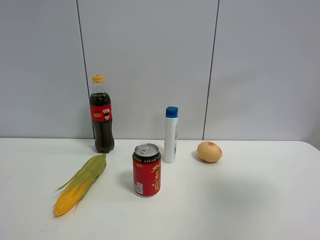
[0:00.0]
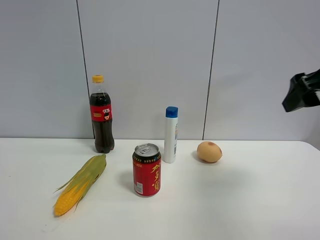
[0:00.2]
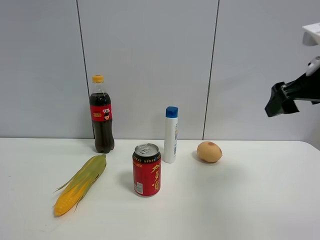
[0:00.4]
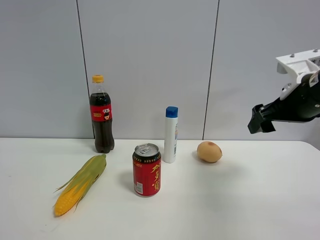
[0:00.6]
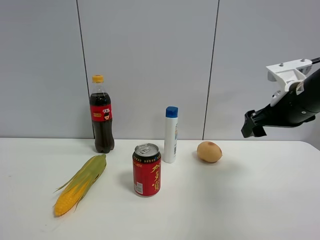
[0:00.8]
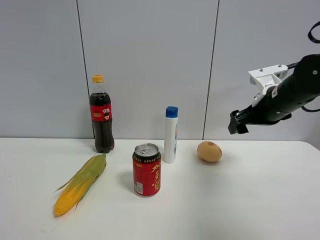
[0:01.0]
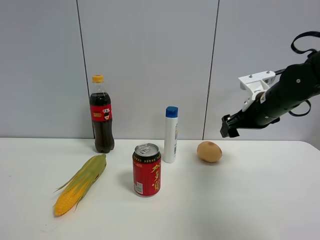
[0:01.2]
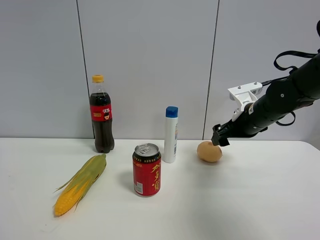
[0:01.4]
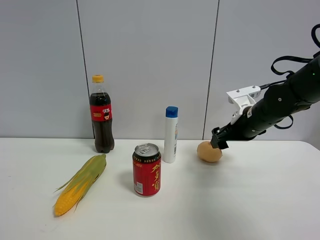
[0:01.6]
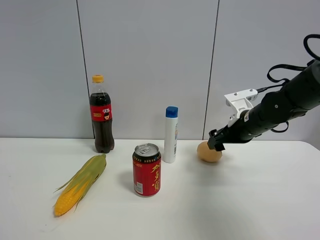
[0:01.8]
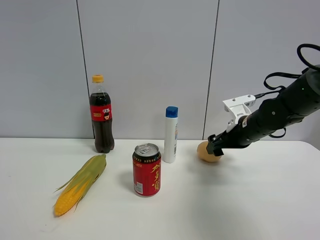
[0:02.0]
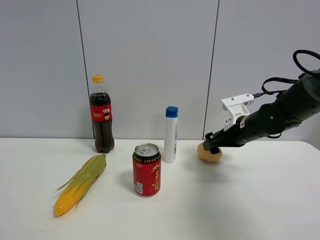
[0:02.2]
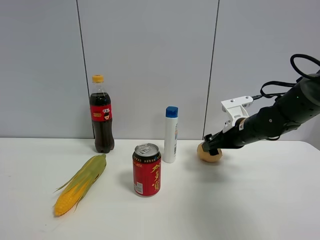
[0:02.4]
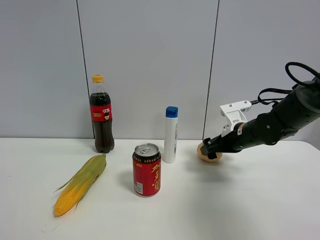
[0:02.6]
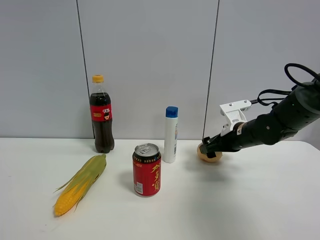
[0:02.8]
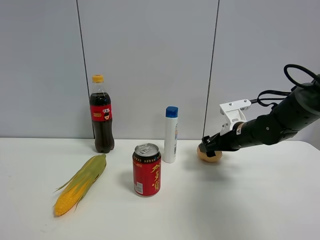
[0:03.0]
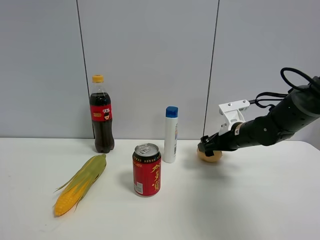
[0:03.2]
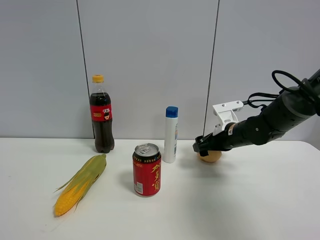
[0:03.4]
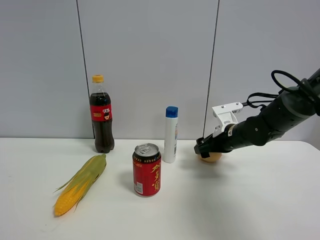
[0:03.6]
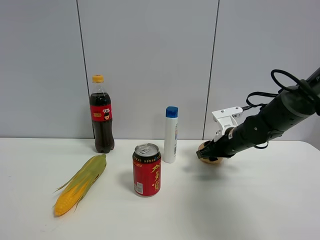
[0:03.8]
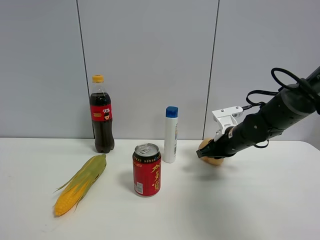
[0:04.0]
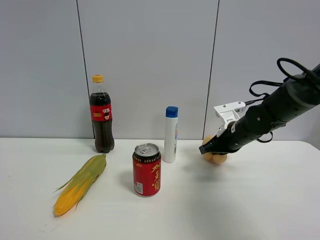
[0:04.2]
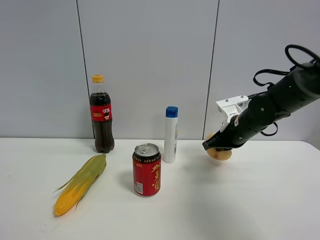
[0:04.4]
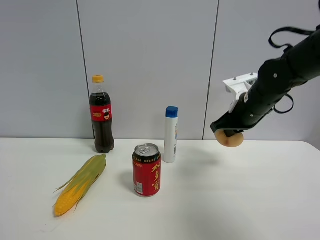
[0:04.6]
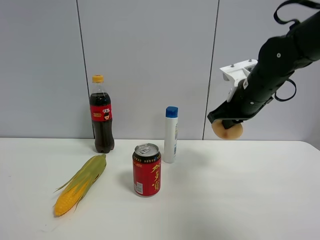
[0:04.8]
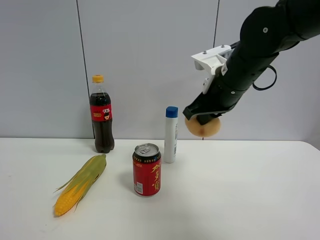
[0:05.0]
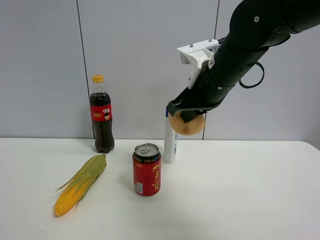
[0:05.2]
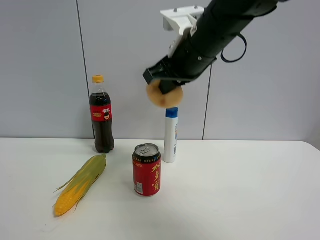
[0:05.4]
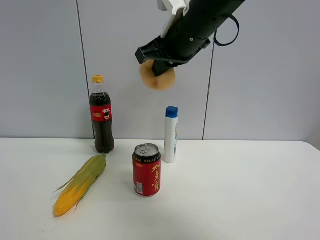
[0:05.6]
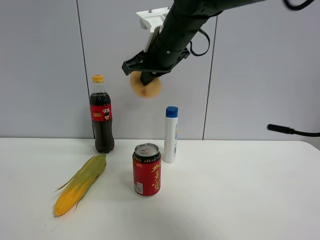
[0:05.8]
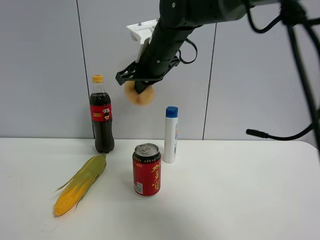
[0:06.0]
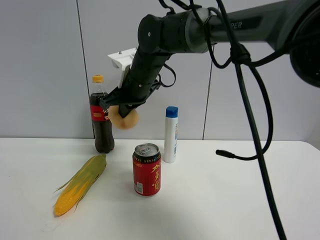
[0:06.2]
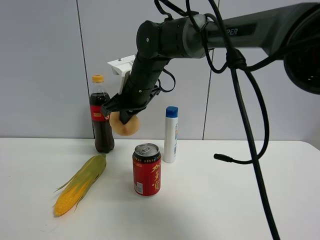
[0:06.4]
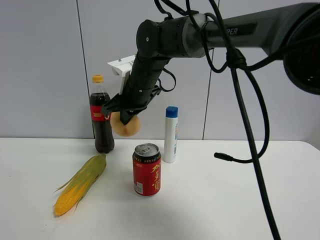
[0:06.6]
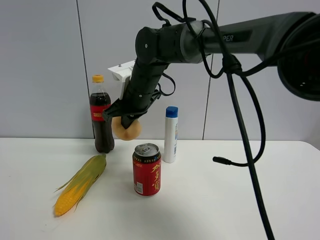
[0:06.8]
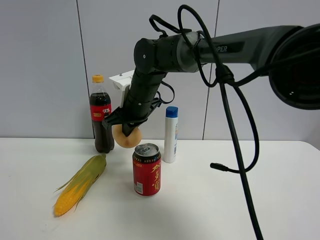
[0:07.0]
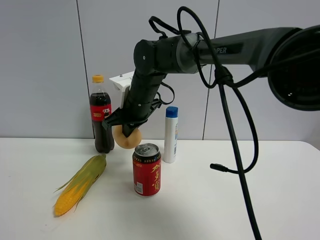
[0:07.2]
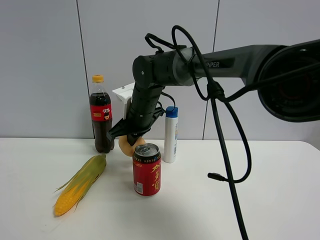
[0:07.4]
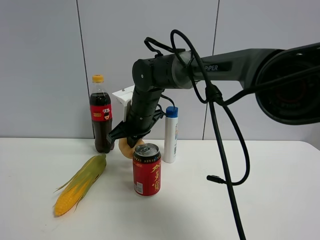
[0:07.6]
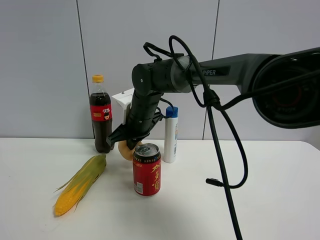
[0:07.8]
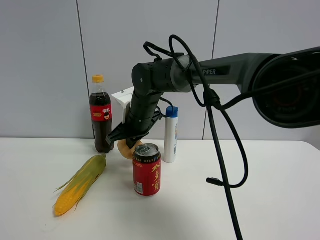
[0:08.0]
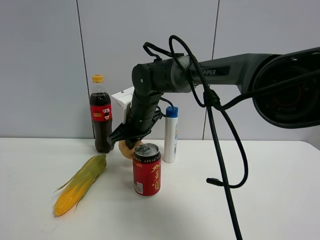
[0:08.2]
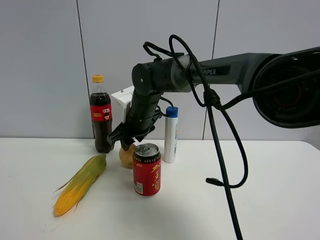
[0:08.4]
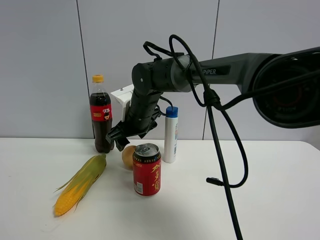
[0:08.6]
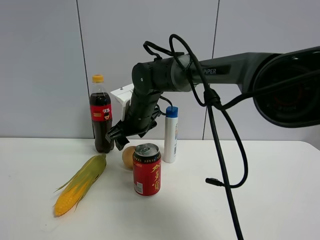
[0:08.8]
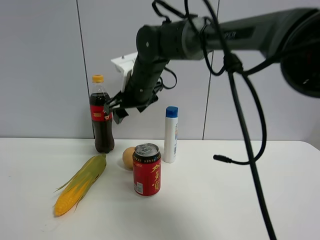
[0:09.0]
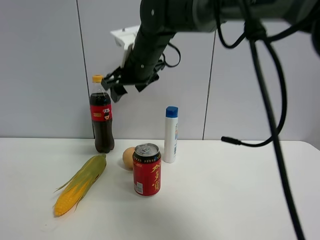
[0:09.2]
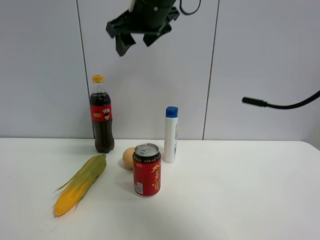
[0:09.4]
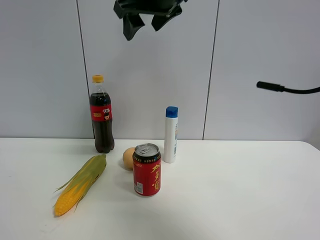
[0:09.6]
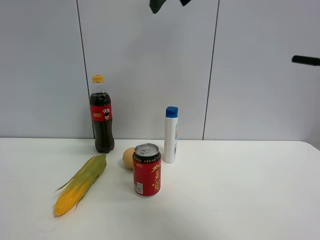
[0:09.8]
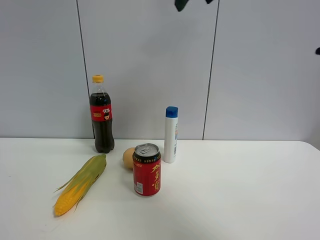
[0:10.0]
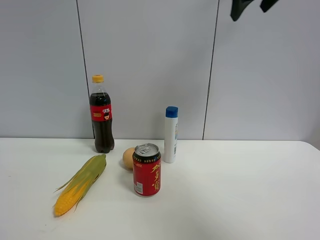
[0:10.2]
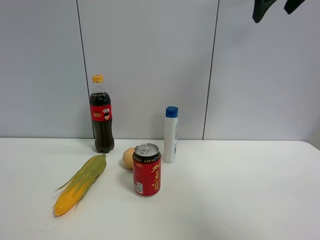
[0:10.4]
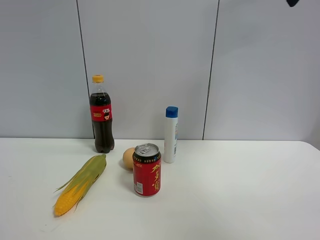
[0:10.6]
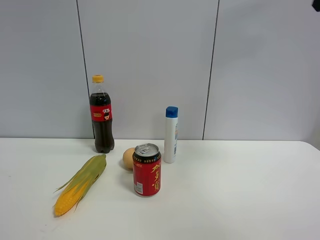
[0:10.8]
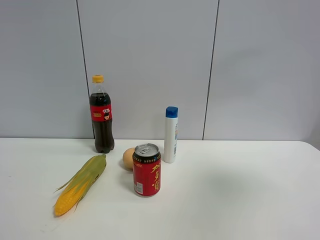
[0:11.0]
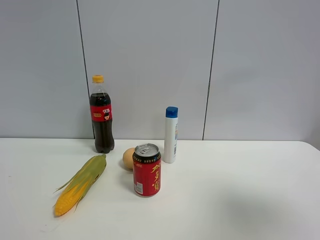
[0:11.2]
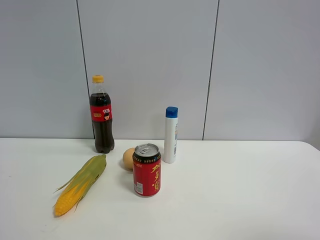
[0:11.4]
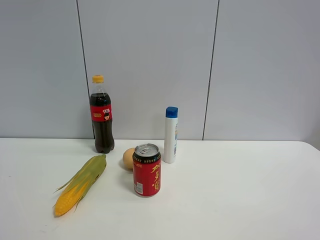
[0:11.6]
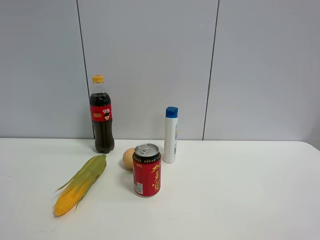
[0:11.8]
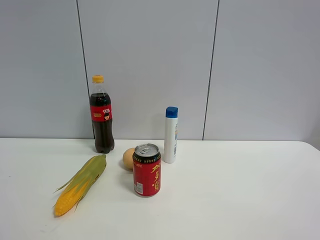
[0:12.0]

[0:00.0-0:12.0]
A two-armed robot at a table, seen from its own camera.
Task of the whole recording: the gripper move the object.
Step, 0:00.0 to 0:04.0: Grasp the egg yolk pastry with the right gripper.
Step, 0:04.2 to 0:08.4: Place the egg yolk pastry on the table with the right gripper.
0:00.0 to 0:01.6: The right gripper heads forward, downward and to the left, covering about 30 cm.
0:01.6 to 0:03.0: The right gripper moves roughly 5 cm.
0:03.0 to 0:04.4: The right gripper closes its fingers.
0:04.4 to 0:06.0: The right gripper moves to the left and upward, some 25 cm.
0:06.0 to 0:07.6: The right gripper travels downward by approximately 10 cm.
0:07.6 to 0:09.0: The right gripper goes approximately 10 cm upward, and opens up.
0:09.0 to 0:10.4: The right gripper moves to the right and upward, roughly 35 cm.
0:10.4 to 0:12.0: The right gripper shifts roughly 40 cm backward and downward.

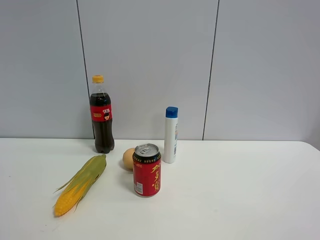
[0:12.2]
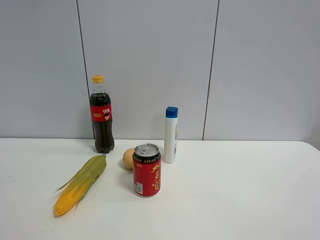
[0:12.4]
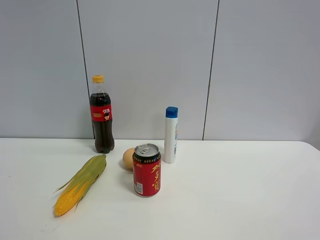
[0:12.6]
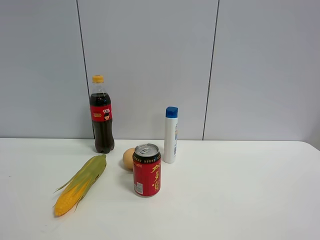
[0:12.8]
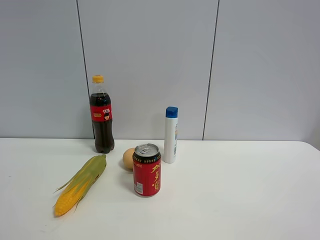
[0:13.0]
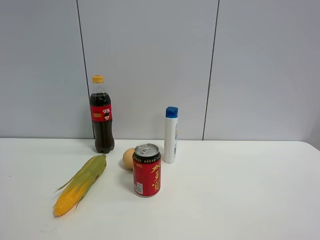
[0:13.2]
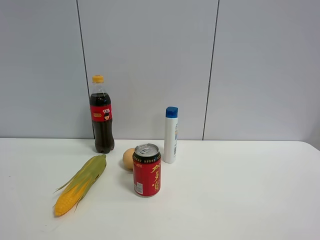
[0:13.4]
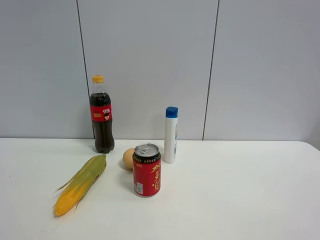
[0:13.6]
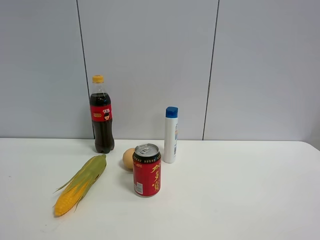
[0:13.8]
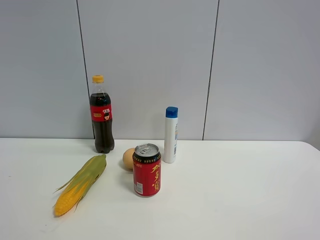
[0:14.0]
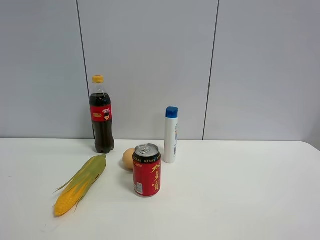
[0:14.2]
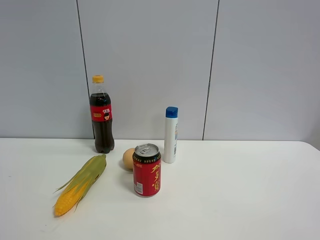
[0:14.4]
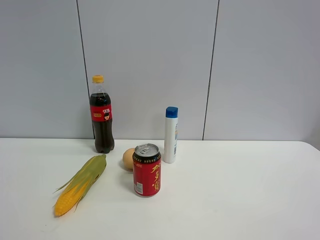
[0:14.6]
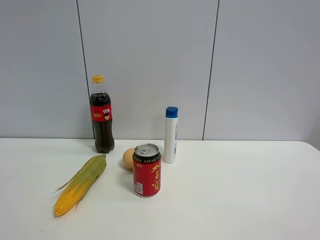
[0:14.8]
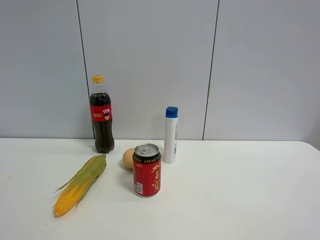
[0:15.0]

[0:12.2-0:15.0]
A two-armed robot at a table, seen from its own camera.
Task of the whole recording: the gripper move the object.
0:12.2 to 0:13.6: Both grippers stay about where they are.

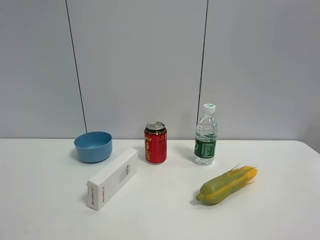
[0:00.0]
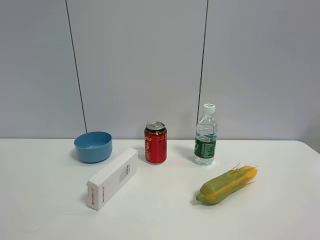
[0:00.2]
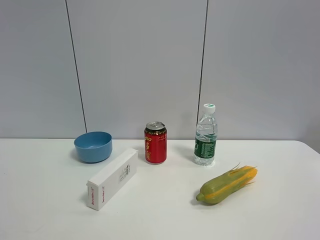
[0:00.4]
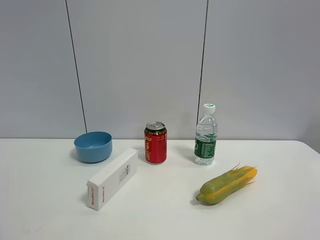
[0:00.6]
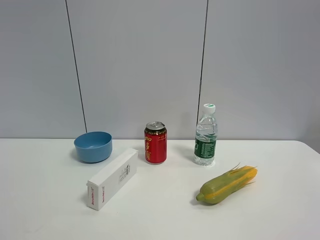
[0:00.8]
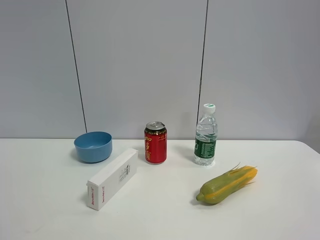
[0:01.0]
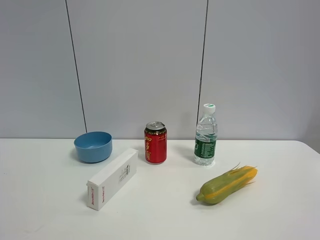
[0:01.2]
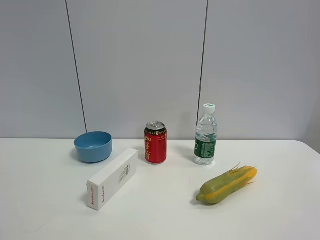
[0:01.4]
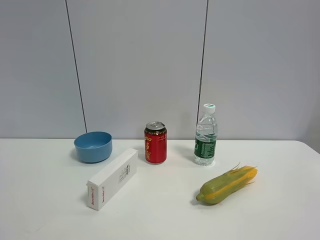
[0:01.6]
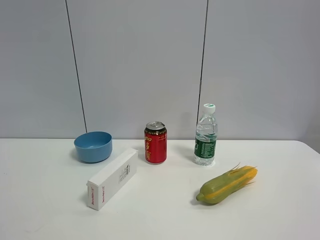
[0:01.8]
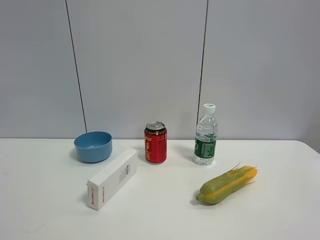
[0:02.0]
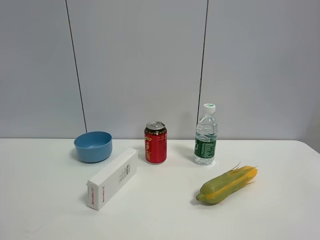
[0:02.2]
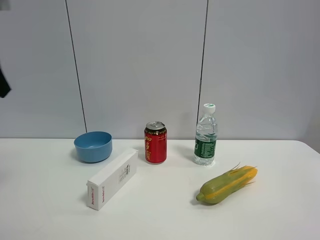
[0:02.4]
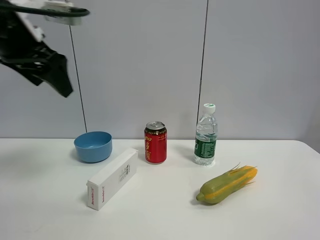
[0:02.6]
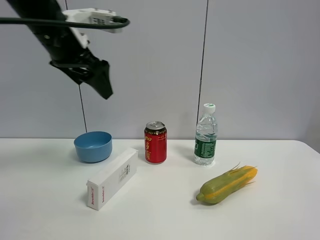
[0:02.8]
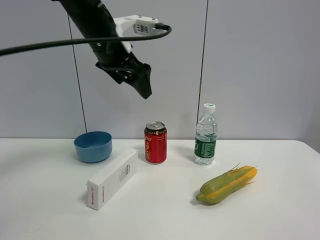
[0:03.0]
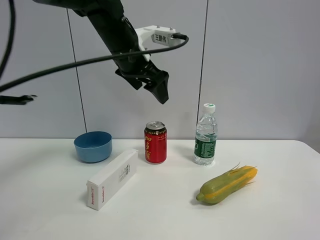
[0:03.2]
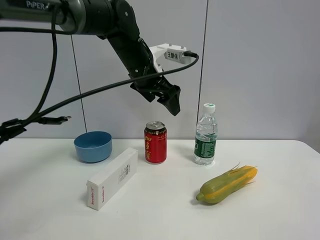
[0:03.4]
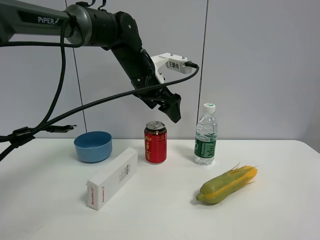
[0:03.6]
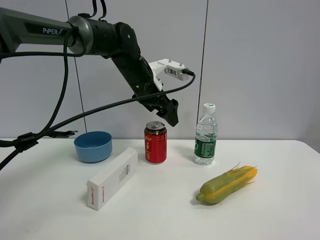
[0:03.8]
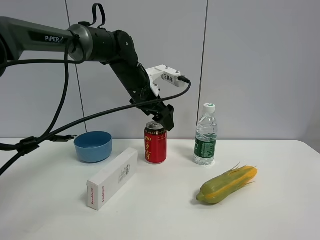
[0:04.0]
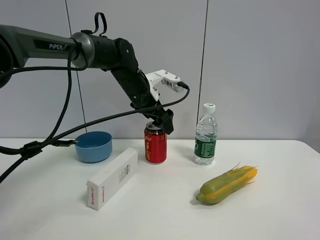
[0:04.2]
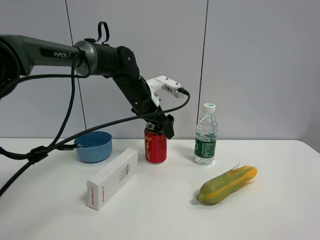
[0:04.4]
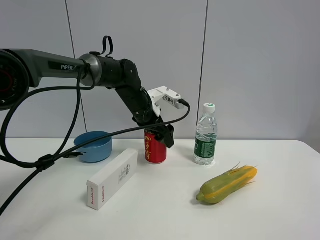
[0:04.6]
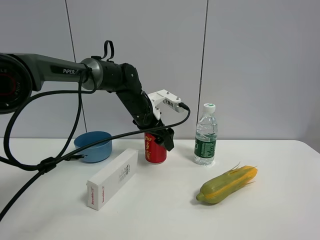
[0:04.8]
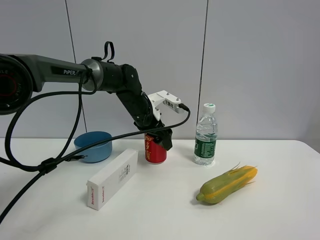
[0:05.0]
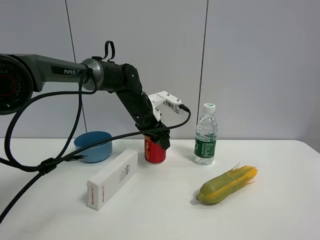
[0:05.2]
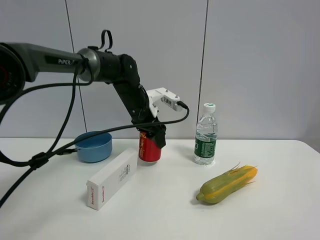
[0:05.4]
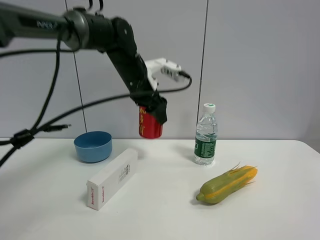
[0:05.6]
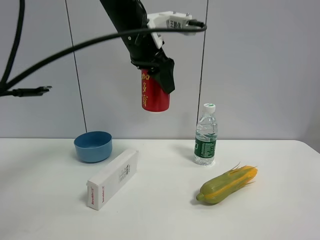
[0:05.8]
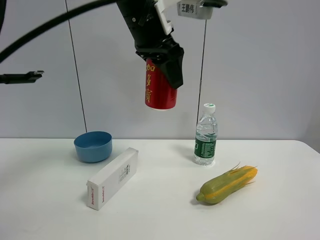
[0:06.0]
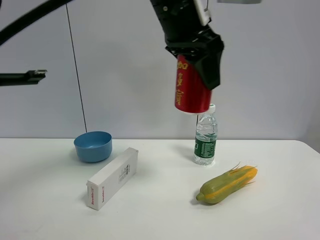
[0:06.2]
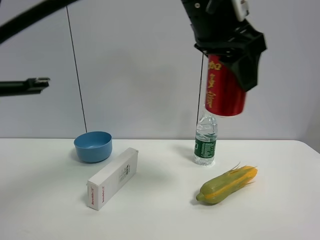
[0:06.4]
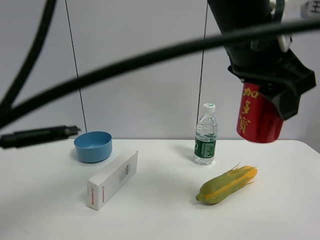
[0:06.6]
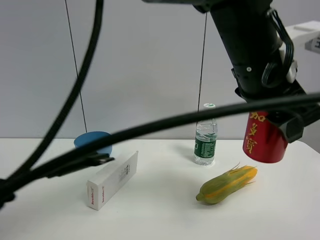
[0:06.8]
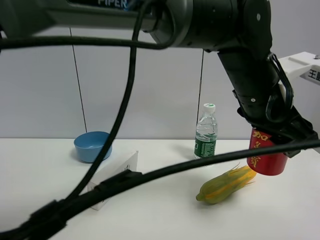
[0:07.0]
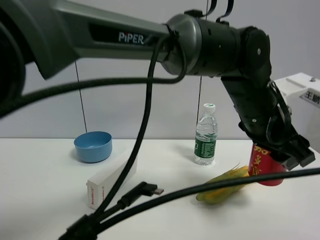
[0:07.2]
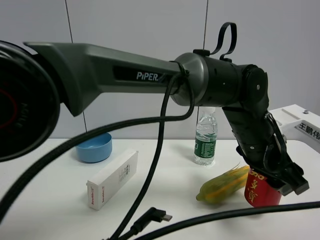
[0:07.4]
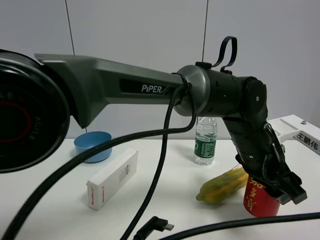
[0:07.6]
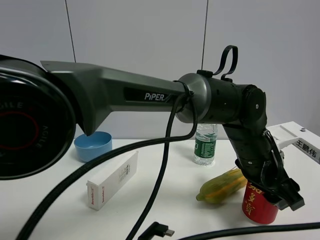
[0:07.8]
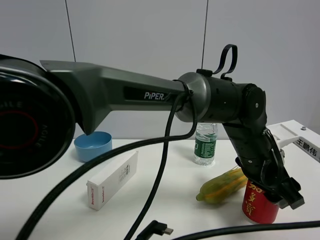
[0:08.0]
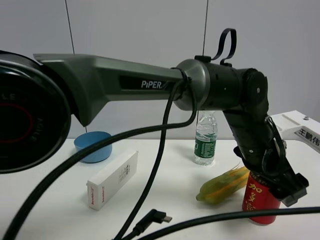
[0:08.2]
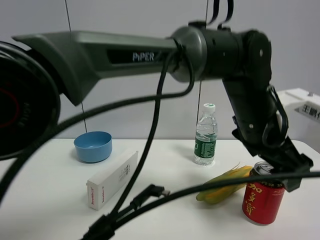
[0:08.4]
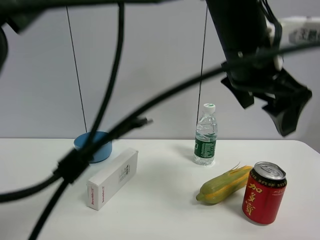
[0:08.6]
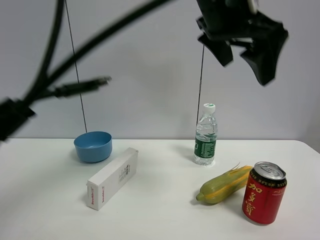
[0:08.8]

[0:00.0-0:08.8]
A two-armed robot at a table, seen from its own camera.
Task of the whole recording: the gripper move the object.
Step, 0:00.0 to 0:05.0: Grasp the Jia Duo Bao with the left gripper.
Step, 0:05.2 to 0:08.4: Place the Jia Duo Bao on the table with the left gripper.
0:01.4 to 0:03.0: The left gripper heads forward and to the right, covering approximately 50 cm, and opens its fingers.
0:03.0 to 0:04.4: The left gripper shifts approximately 15 cm downward and forward.
0:04.4 to 0:05.8: The left gripper is displaced upward and backward by approximately 20 cm, and closes its fingers.
0:05.8 to 0:07.4: The left gripper moves to the right, downward and backward, about 30 cm.
0:07.4 to 0:08.8: The left gripper shifts some 25 cm upward and to the left, and opens its fingers.
